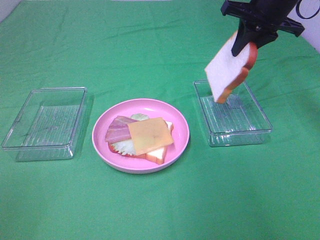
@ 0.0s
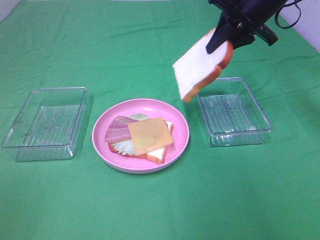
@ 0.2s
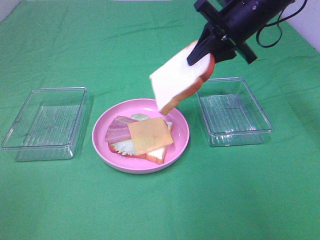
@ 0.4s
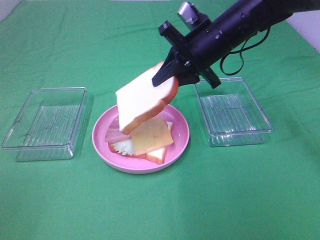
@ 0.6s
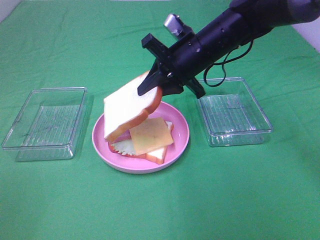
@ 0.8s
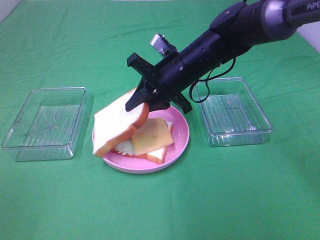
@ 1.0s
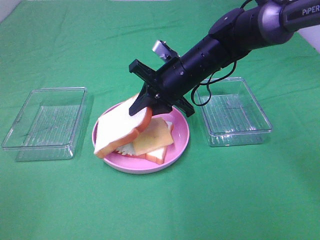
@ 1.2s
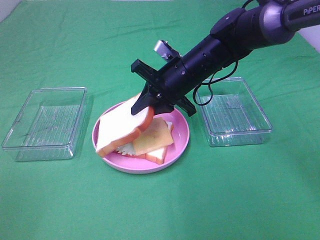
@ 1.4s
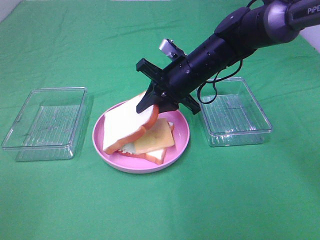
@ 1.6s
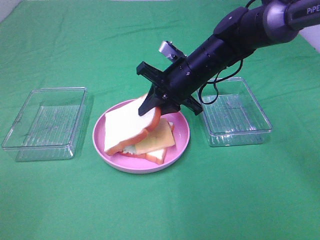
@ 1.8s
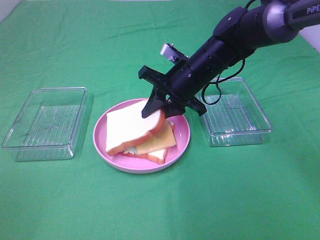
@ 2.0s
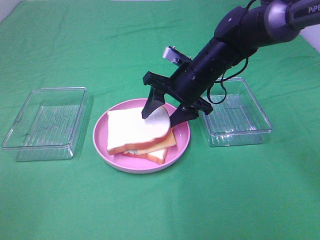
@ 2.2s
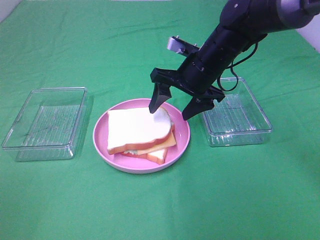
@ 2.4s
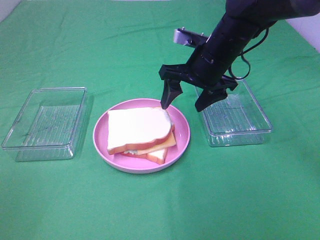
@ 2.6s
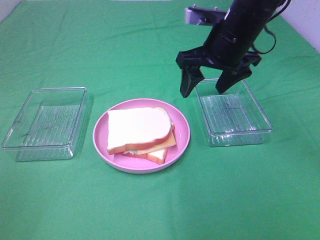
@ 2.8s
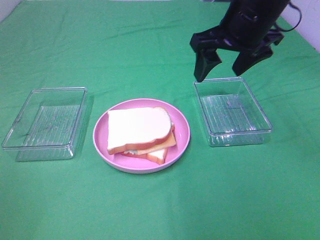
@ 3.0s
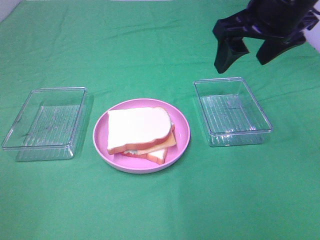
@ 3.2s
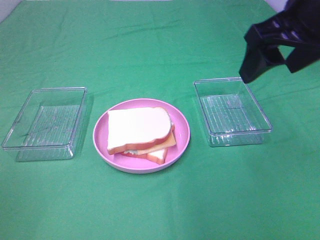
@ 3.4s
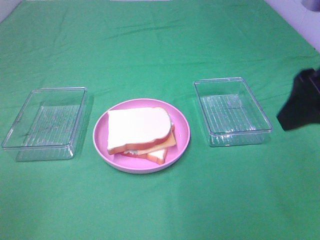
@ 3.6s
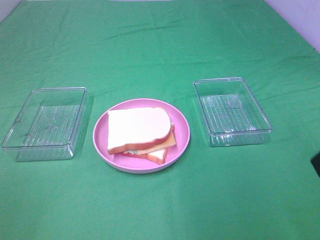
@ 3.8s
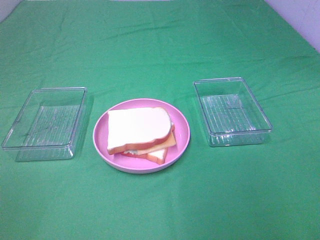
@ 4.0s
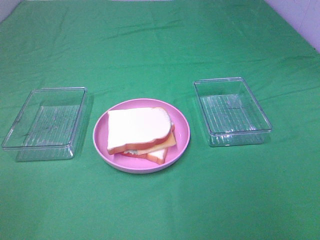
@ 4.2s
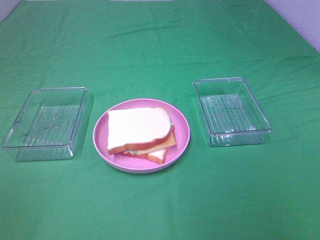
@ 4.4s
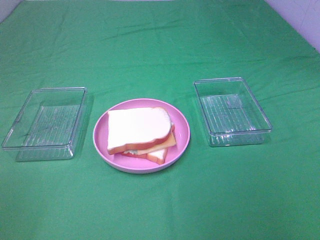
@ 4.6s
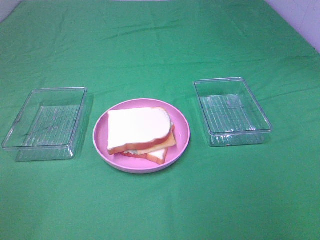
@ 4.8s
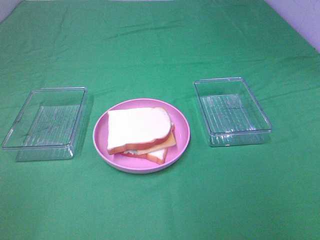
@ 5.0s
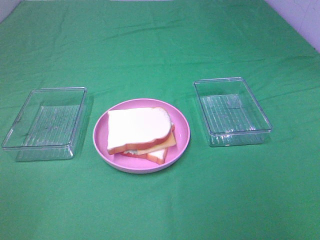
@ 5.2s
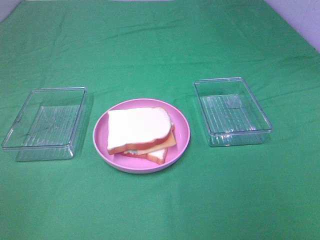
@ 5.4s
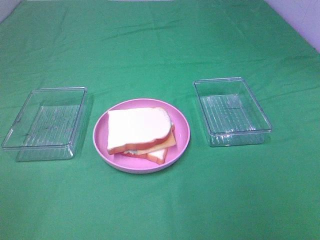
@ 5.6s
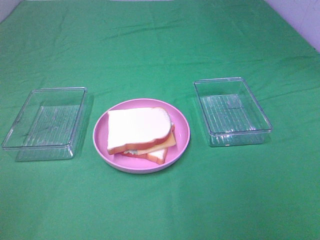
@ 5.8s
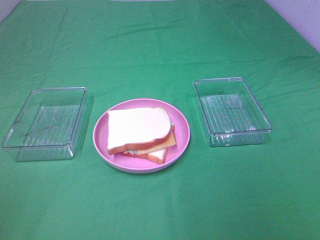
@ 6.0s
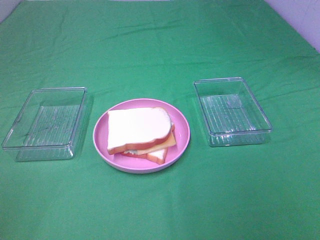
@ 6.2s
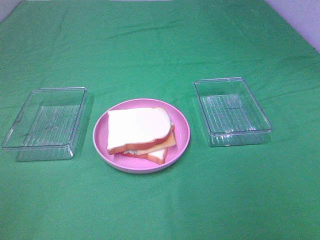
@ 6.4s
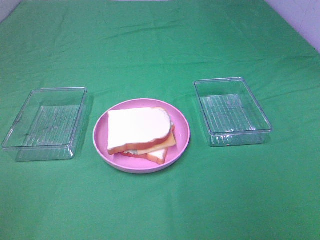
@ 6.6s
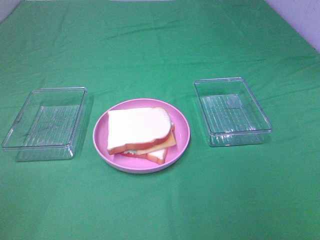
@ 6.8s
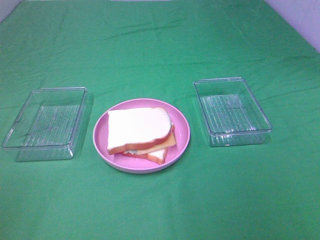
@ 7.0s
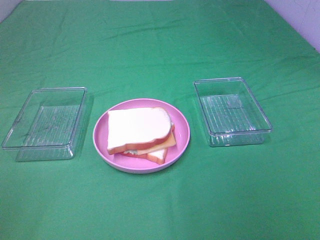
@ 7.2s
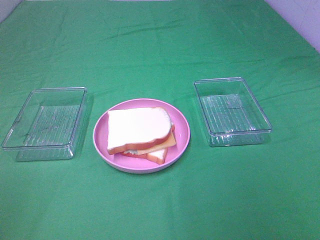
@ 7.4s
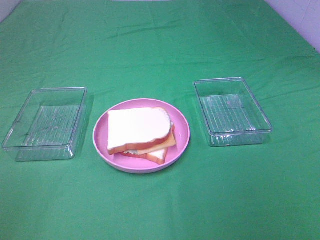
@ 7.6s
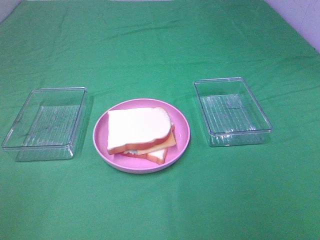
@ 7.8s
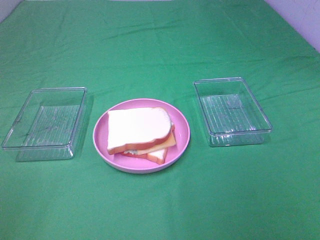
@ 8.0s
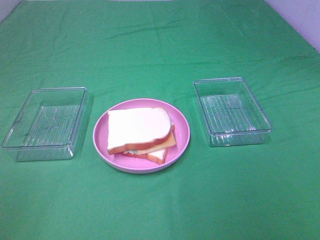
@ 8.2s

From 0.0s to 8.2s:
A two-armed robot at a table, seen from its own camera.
Task of the whole recording: Make sandwiches.
Step, from 0.0s to 2.2s: Right hand:place the bread slice on the cheese slice.
From 0.0s to 1.6s: The right gripper is displaced to the left and downward by approximately 20 cm.
From 1.6s to 3.2s: The right gripper moves upward, to the right and backward, some 20 cm, and opens its fingers.
From 3.2s to 5.0s: The right gripper moves backward and to the right, about 30 cm.
From 6.6s to 8.2s: Both grippers stay put.

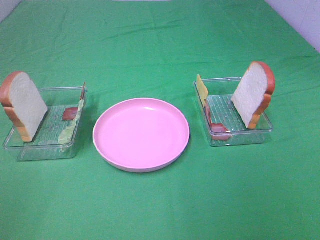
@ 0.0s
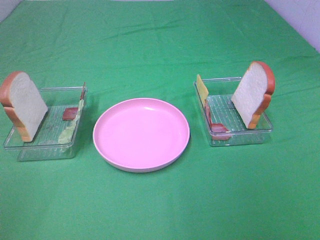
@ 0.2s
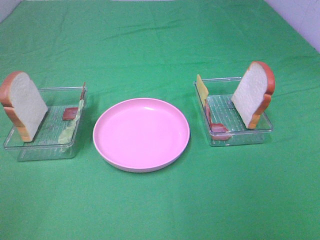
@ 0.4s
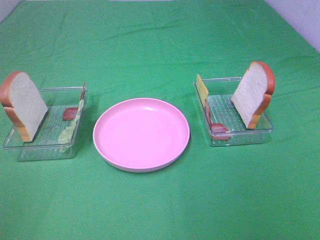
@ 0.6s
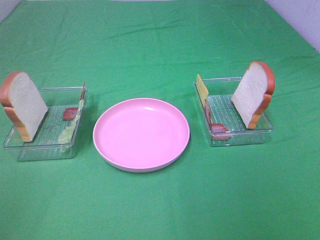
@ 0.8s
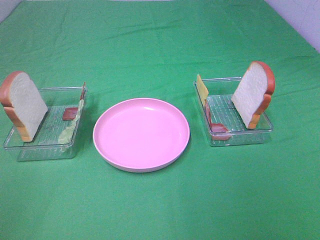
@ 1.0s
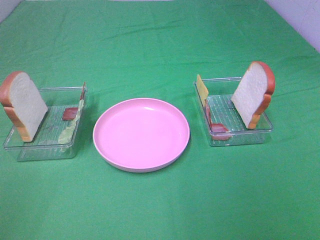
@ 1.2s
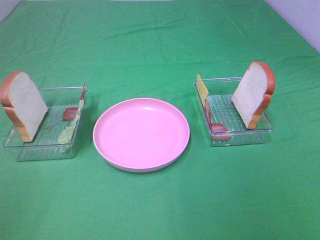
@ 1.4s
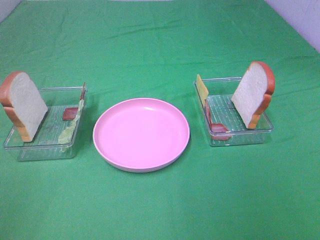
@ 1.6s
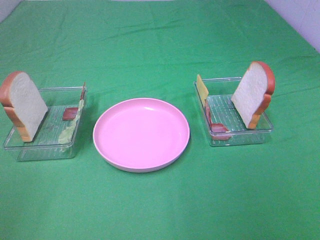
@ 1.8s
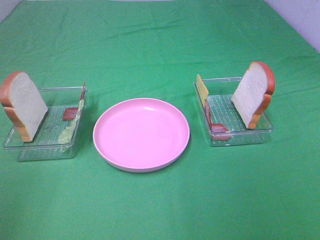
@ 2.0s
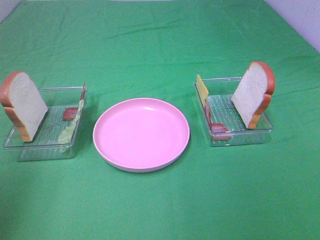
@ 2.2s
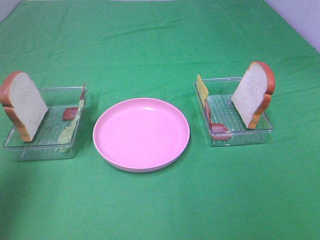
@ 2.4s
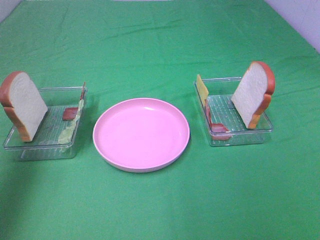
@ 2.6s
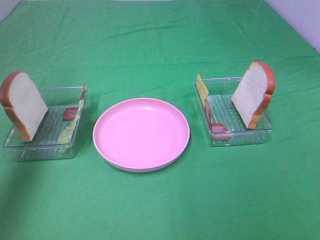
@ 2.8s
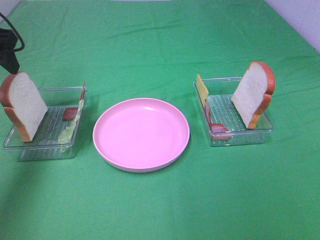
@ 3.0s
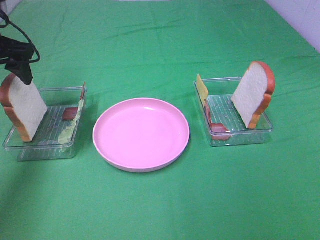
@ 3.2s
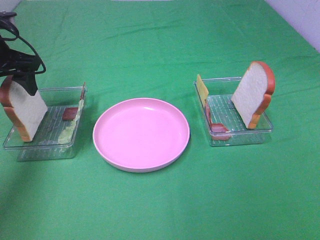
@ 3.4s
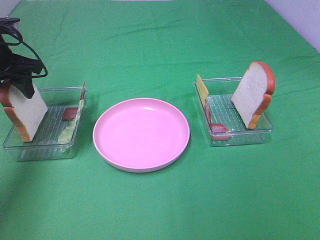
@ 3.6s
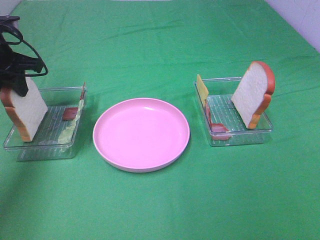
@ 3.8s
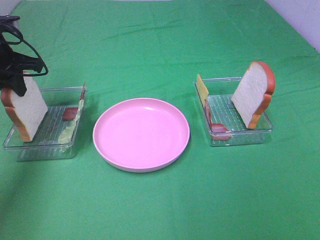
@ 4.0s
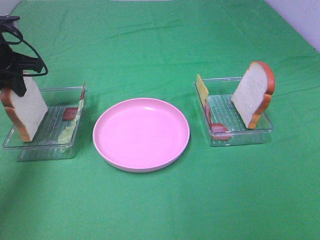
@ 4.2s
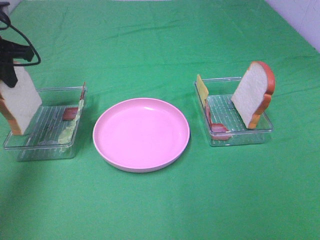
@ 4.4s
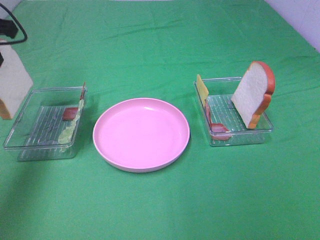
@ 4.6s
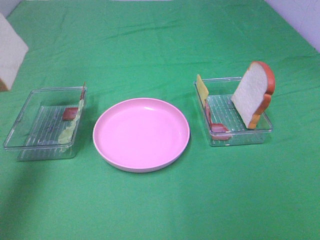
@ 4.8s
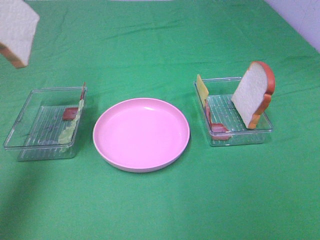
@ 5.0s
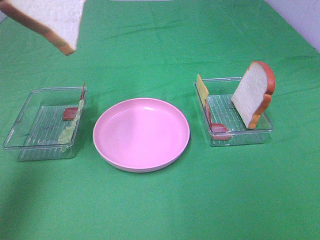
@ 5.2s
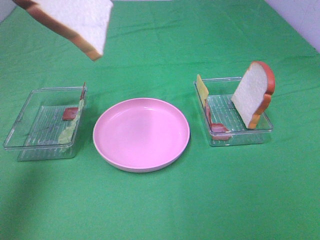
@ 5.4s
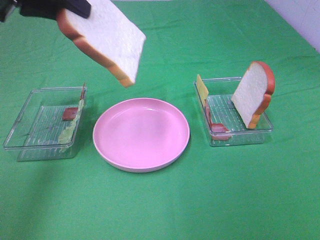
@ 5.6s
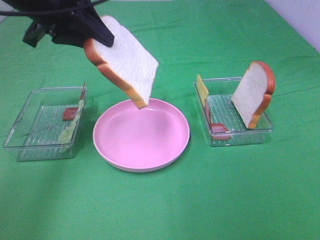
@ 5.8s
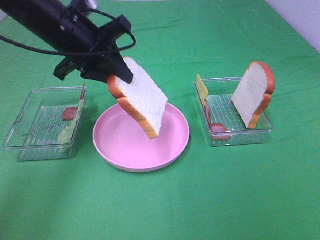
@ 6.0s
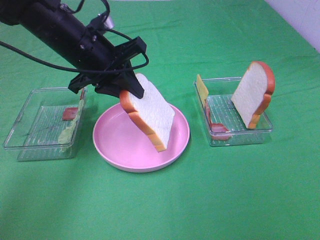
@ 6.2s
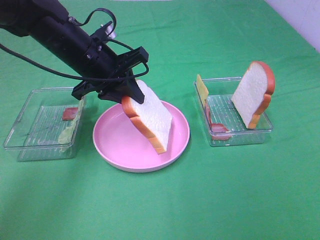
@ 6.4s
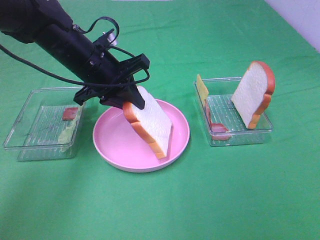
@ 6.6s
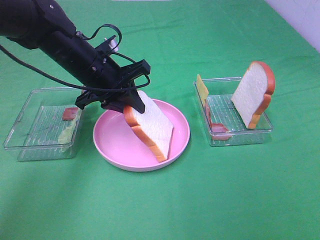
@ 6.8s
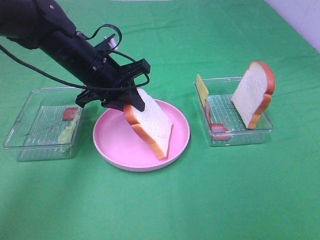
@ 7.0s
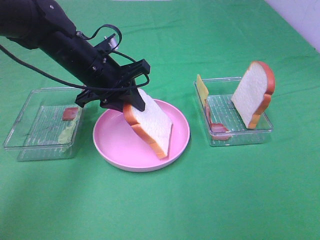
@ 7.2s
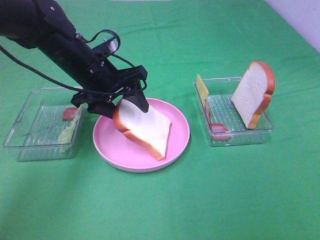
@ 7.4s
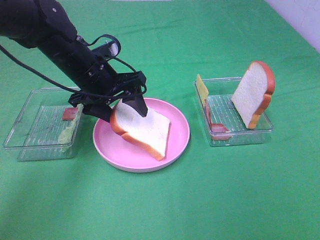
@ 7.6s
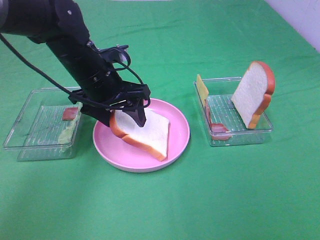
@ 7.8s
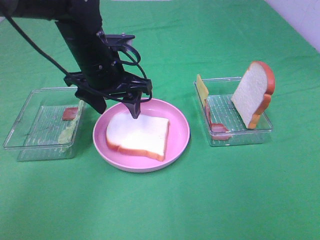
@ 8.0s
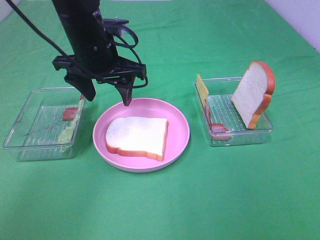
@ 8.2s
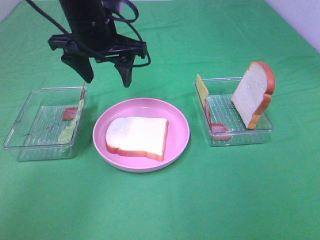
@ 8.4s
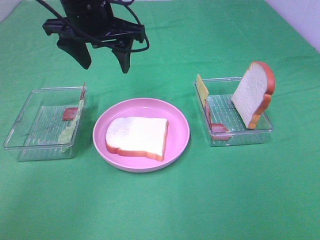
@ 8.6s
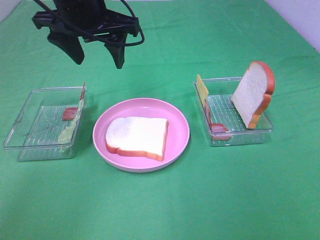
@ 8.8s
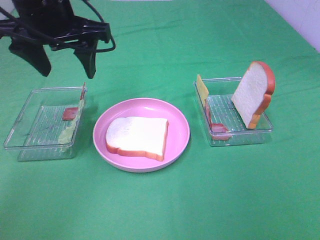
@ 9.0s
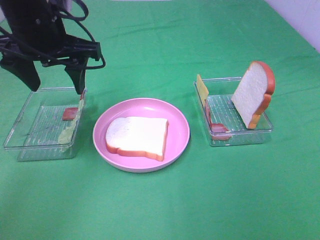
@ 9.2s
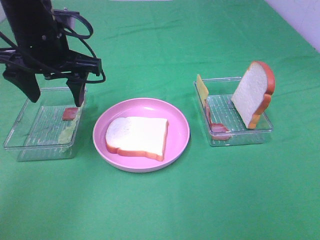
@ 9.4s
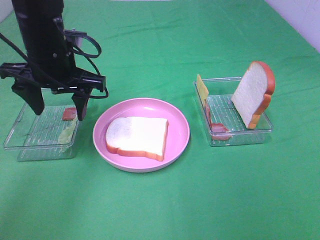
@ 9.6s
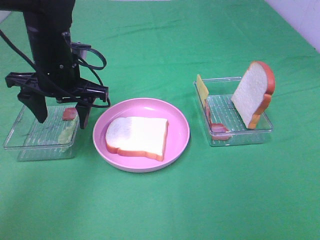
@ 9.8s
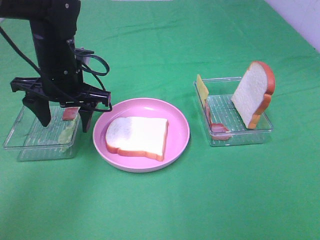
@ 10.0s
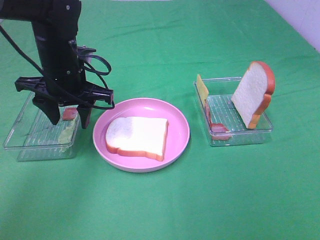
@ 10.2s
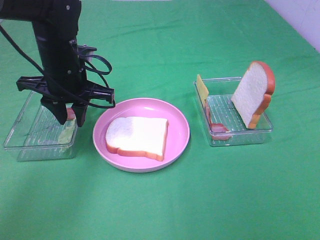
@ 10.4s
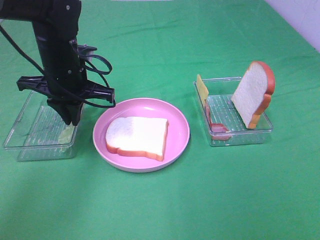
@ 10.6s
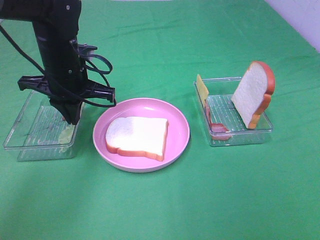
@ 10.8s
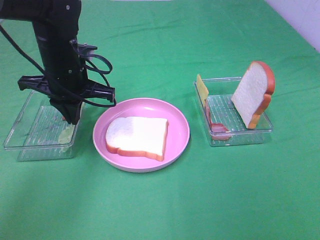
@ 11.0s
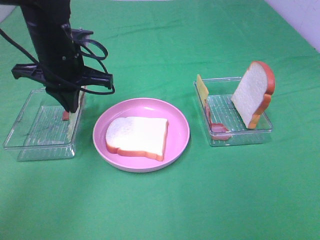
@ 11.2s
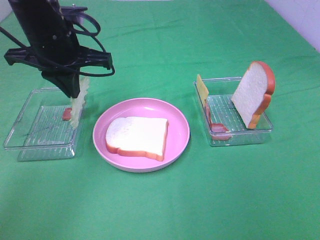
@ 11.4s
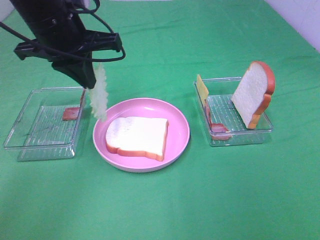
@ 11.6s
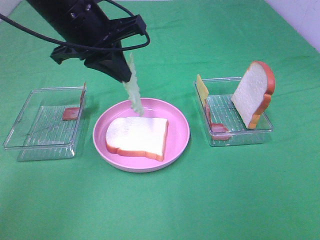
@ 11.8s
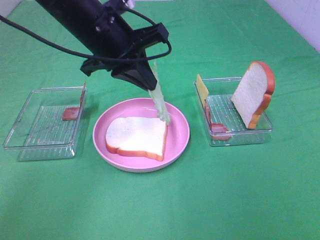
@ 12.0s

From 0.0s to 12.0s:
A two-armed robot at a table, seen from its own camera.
Task of the whole recording: Make sandwiches.
Step, from 0.0s to 4.2s: Left hand:grab the bread slice.
Step, from 4.4s to 8.0s: Left hand:place the bread slice on the plate.
Step, from 8.2s to 10.8s: Left hand:grab the lettuce slice.
From 0.0s to 1.6s: Both grippers stay put.
From 1.6s to 3.0s: The left gripper heads forward, covering roughly 35 cm.
From 3.0s to 4.4s: The left gripper closes up.
From 4.4s to 6.0s: The left gripper travels to the right by some 15 cm, and reaches approximately 15 cm upward, then returns.
From 6.0s to 7.6s: The left gripper moves downward, about 10 cm, and opens its fingers.
From 7.6s to 9.0s: The left gripper is displaced upward by some 15 cm.
From 9.0s to 10.4s: The left gripper moves downward, about 10 cm, and closes its fingers.
From 10.4s to 12.0s: The left gripper goes roughly 10 cm upward and to the right, and closes up.

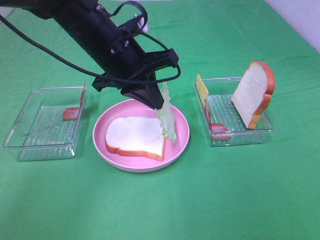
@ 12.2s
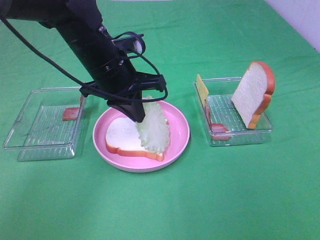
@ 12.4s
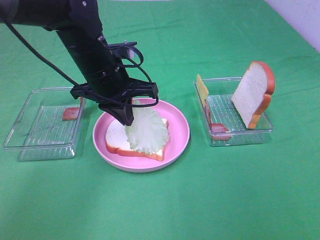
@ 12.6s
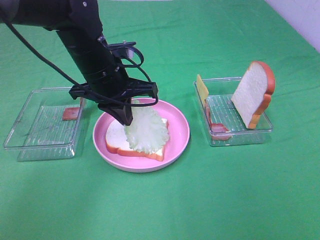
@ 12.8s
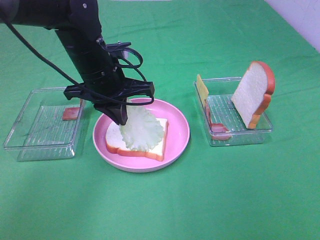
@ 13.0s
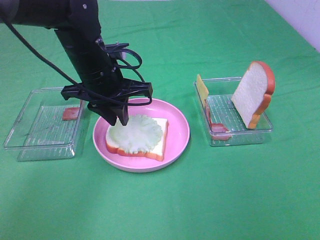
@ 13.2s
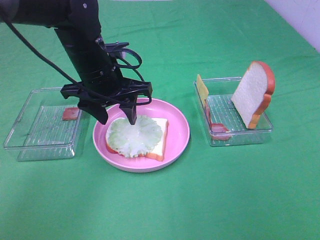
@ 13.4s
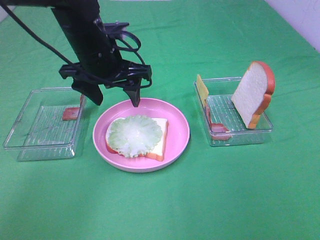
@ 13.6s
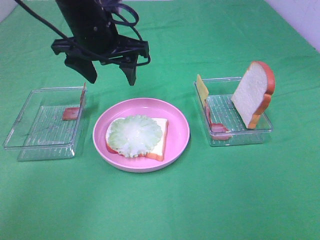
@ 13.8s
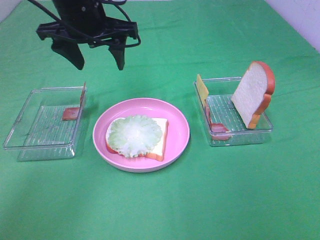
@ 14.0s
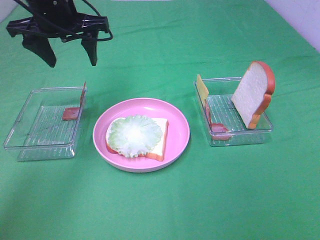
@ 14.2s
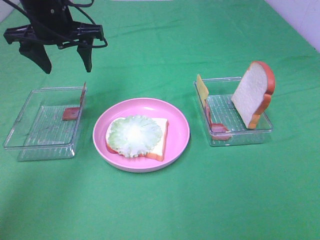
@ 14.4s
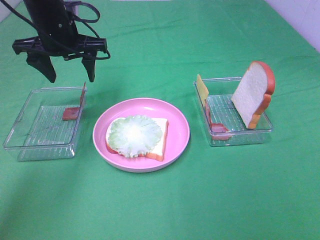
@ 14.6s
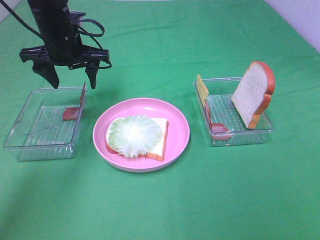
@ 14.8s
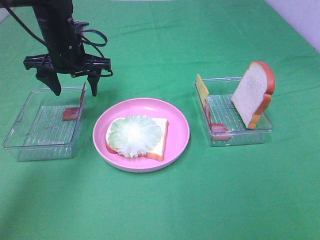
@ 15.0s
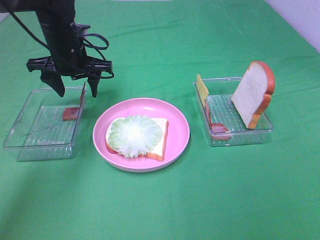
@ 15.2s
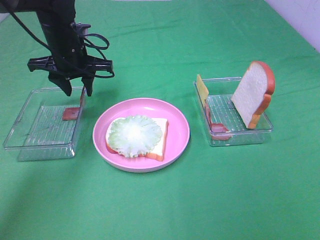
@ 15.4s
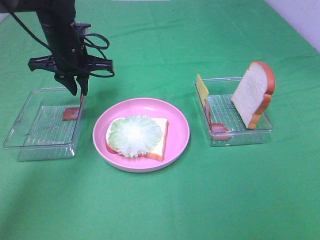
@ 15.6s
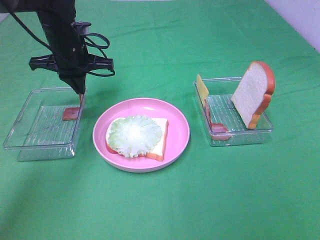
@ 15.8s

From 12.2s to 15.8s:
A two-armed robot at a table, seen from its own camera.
Task of the whole recording: Make sandwiches.
From 12.2s to 14.0s: The left gripper shifts about 5 cm upward, and opens up.
From 14.0s to 15.8s: The left gripper heads downward and forward, covering about 10 cm, and closes.
